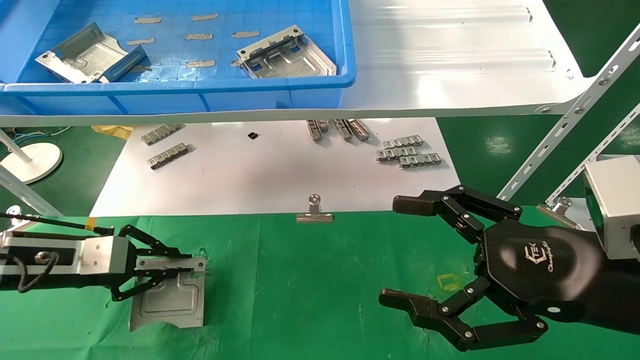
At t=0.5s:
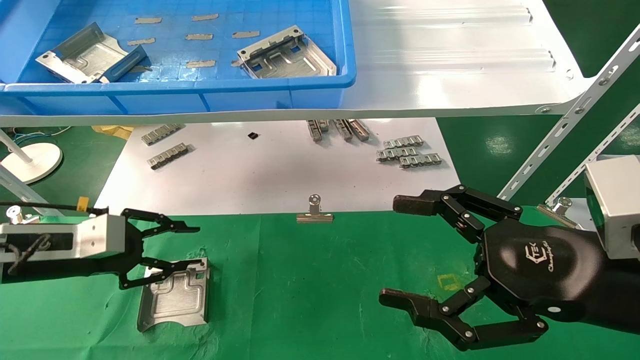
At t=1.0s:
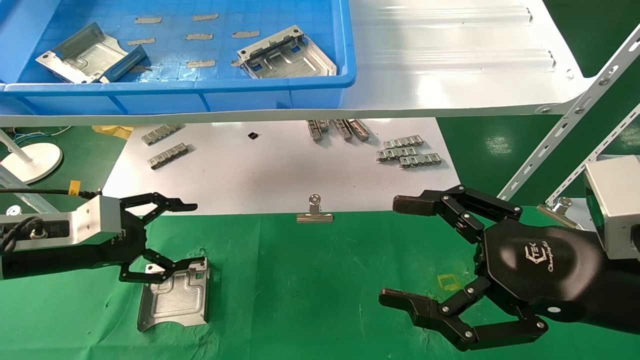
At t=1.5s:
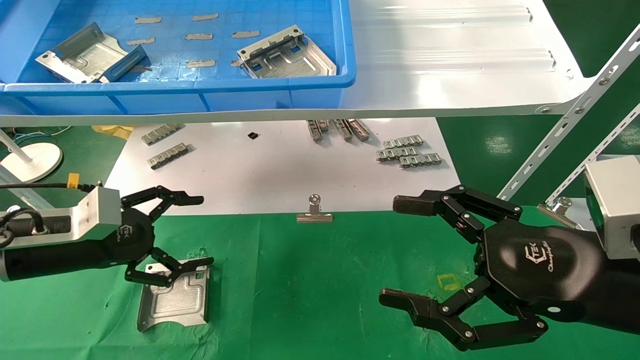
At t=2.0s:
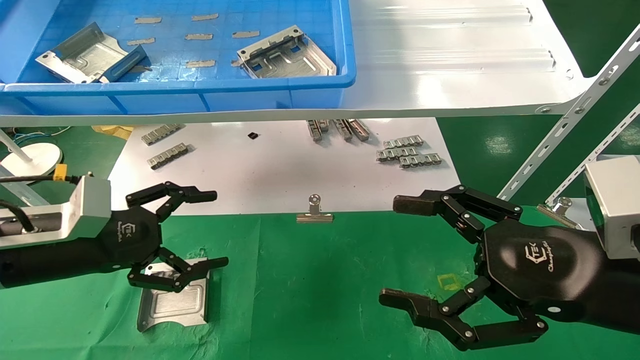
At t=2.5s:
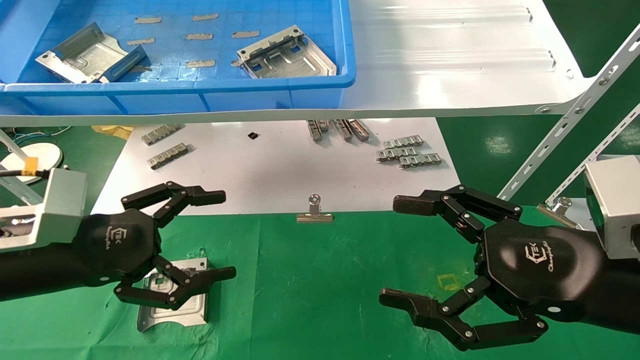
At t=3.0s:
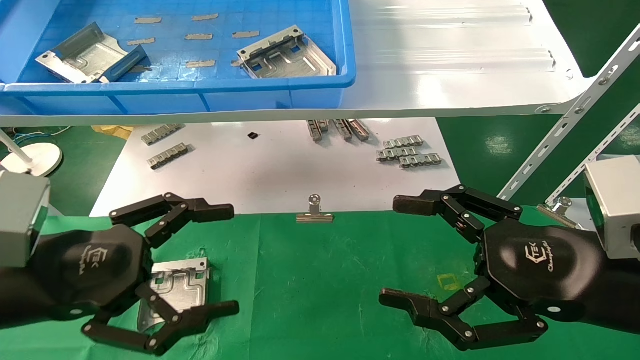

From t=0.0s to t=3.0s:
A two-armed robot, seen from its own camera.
Task of the whole recording: use the mechanical arm to pick up the parts and place them on the table.
From t=0.0s to t=1.5s: The left gripper opens.
From t=1.5s to t=3.0s: The left gripper travels backward and to the right by about 15 cm.
